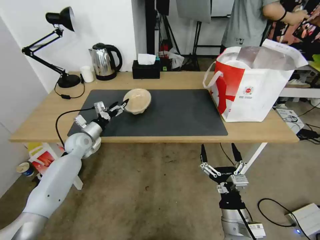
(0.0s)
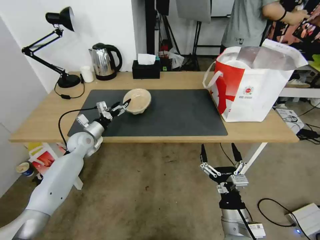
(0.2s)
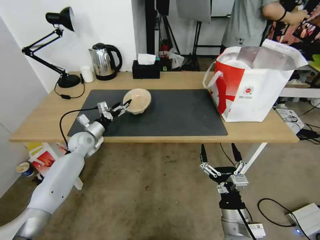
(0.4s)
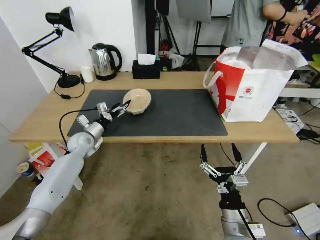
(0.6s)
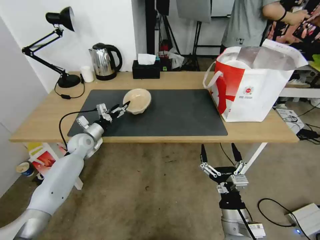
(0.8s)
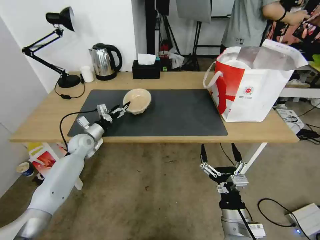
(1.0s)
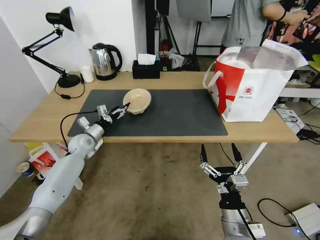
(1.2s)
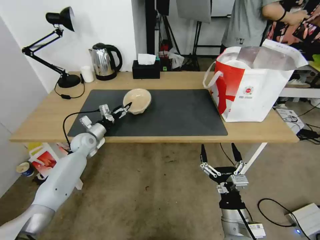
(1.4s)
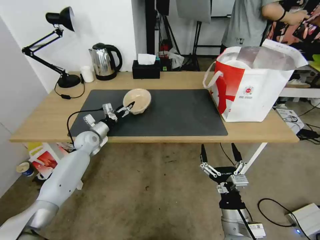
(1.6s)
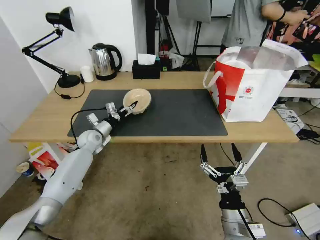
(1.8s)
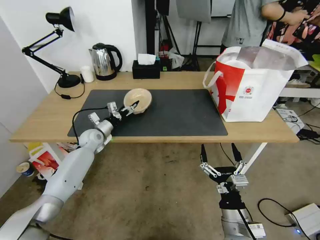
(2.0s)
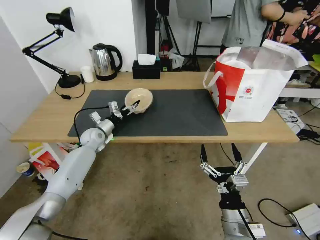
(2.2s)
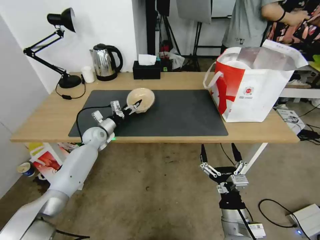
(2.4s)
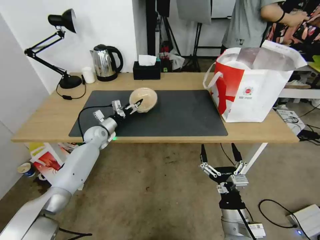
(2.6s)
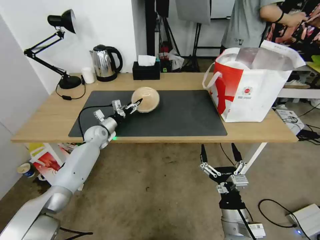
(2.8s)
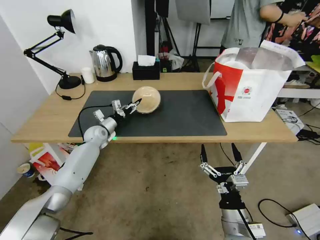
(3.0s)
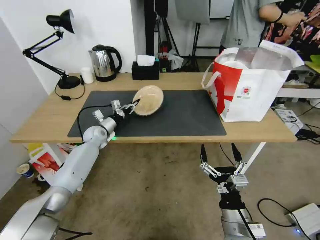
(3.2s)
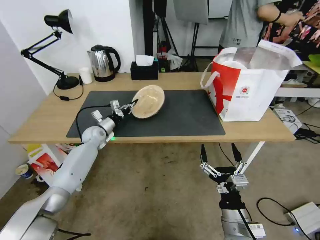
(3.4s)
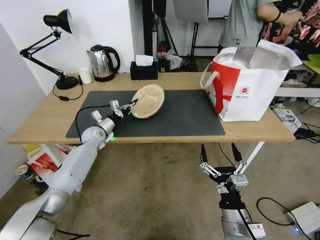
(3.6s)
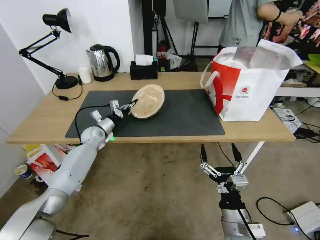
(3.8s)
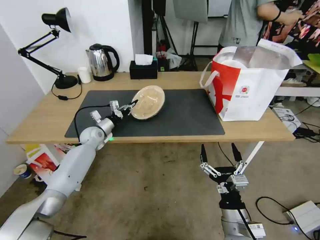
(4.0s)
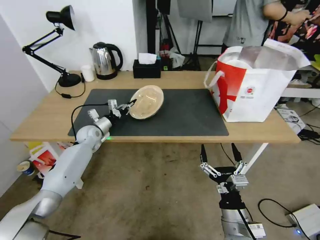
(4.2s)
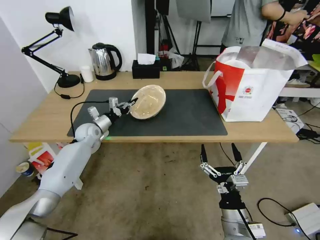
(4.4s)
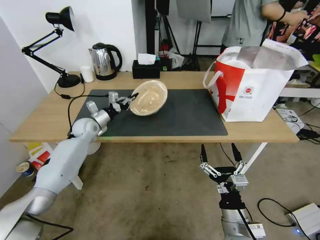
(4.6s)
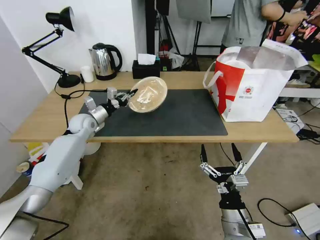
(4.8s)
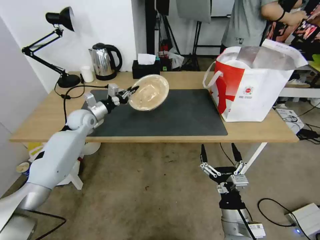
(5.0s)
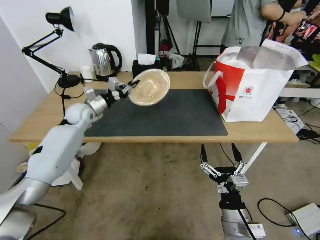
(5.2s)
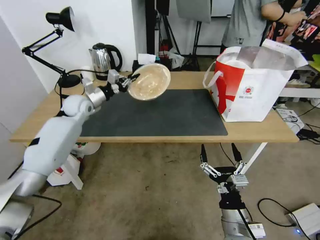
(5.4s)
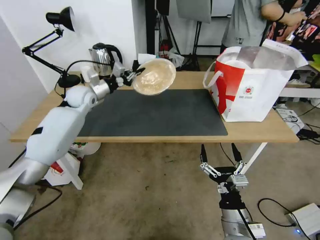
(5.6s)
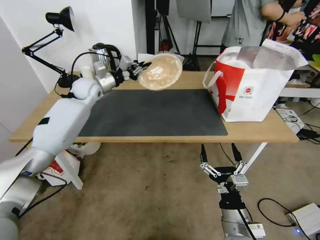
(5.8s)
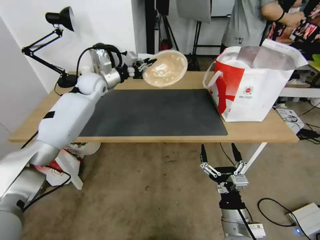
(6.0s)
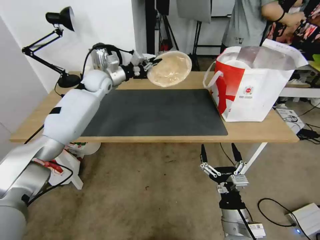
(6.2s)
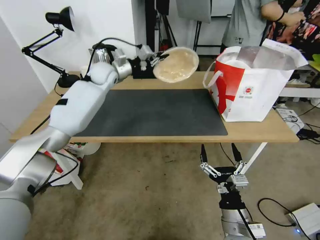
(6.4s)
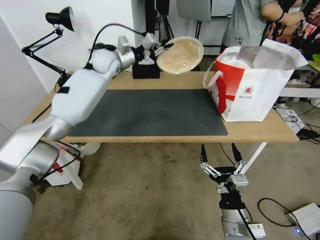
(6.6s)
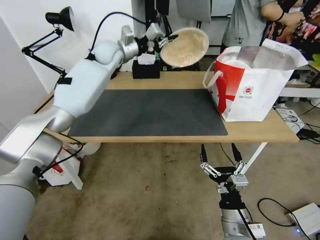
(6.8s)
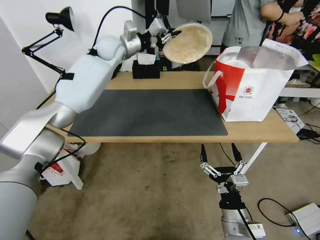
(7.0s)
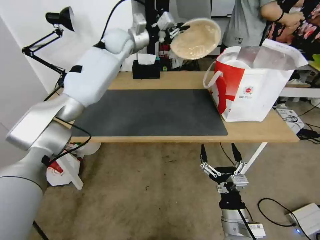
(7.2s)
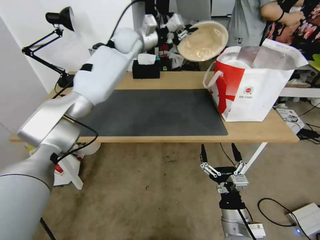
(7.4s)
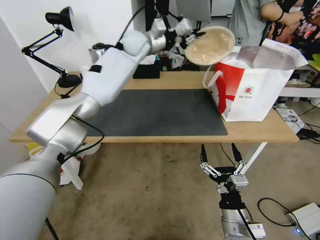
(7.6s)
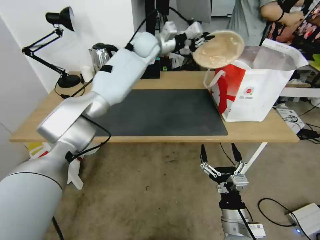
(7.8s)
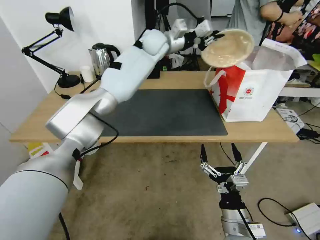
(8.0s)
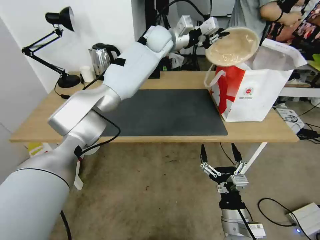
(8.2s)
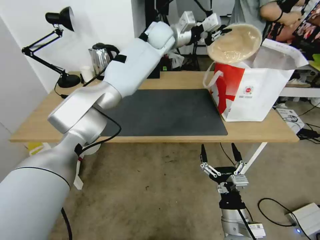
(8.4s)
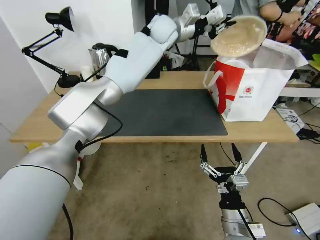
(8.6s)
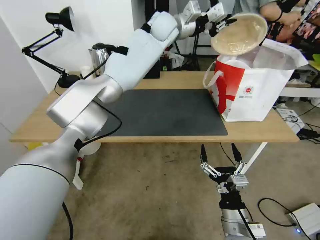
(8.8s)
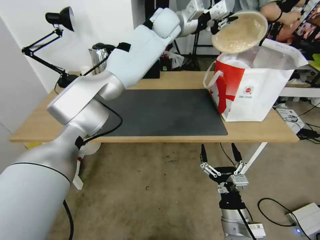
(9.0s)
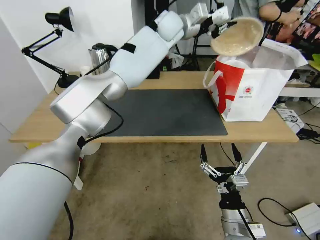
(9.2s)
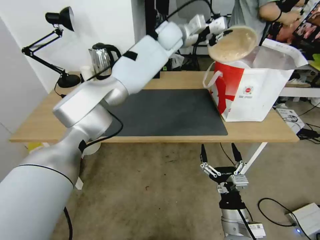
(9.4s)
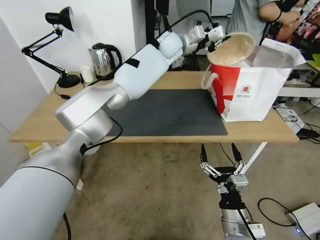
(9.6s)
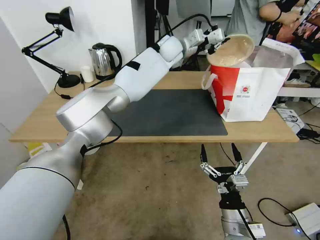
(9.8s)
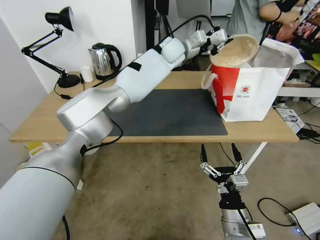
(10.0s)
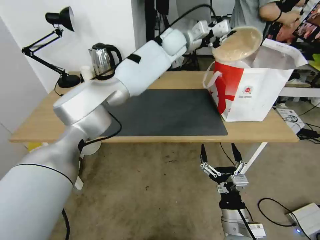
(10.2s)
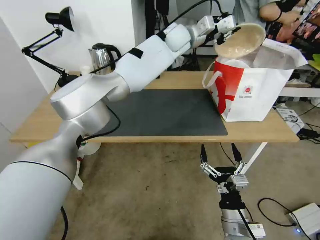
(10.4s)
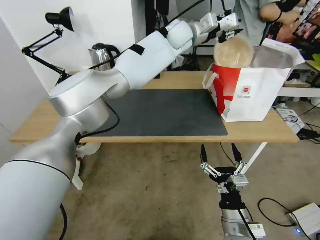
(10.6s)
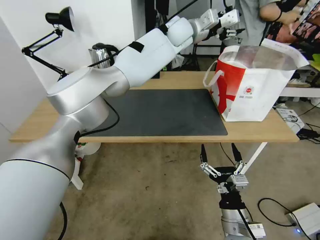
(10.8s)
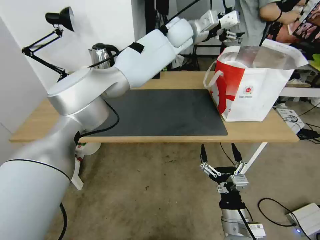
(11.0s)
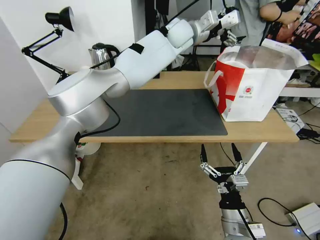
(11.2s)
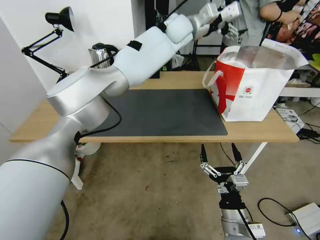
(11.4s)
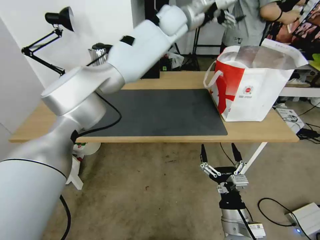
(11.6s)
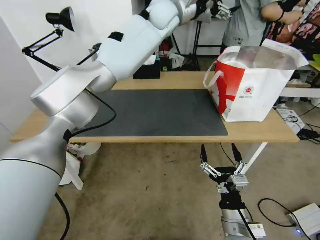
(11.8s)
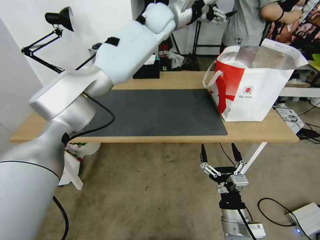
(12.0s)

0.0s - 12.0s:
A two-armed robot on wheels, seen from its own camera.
Task of the whole recording: Pick up the trash from the table and place it into the takeout bag.
0.0s - 1.6s: The grippers move only a little.
1.6s - 3.0s: The left gripper closes up.
3.0s - 4.4s: The left gripper closes its fingers.
4.4s - 6.0s: The left gripper heads upward, covering some 20 cm.
6.0s - 7.6s: The left gripper shifts about 20 cm to the right and upward.
7.6s - 9.0s: The left gripper heads to the right and upward, covering about 10 cm.
10.4s - 12.0s: The left gripper shifts some 5 cm to the left, and opens.

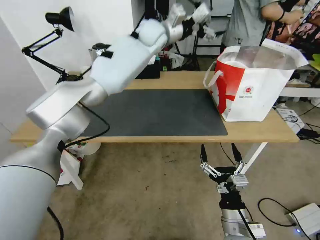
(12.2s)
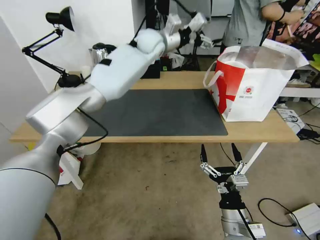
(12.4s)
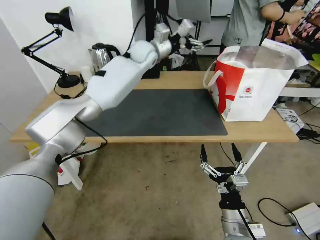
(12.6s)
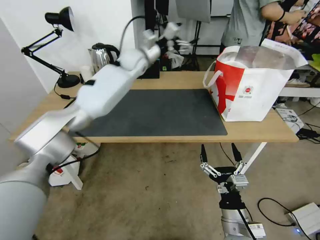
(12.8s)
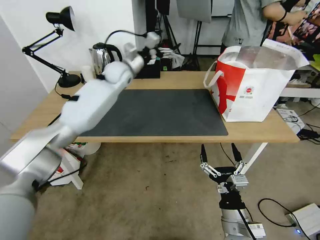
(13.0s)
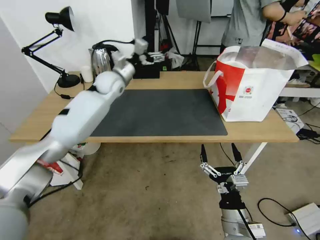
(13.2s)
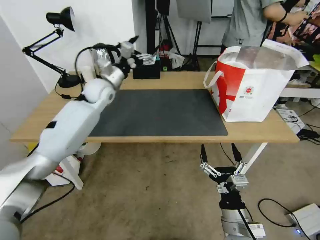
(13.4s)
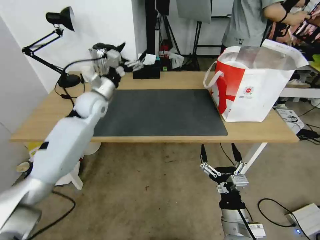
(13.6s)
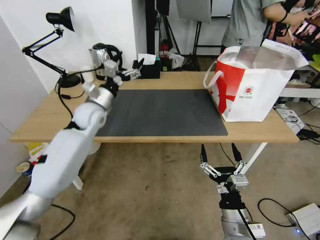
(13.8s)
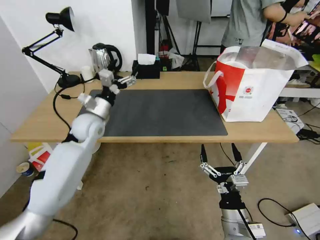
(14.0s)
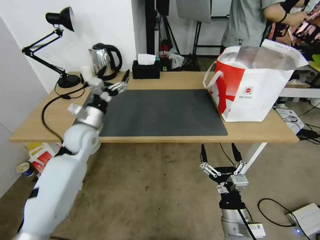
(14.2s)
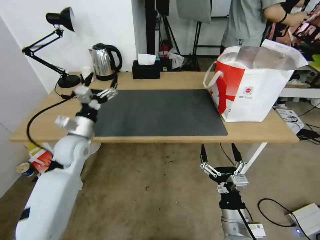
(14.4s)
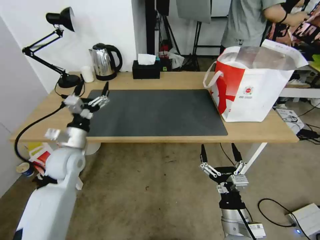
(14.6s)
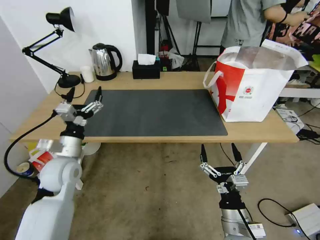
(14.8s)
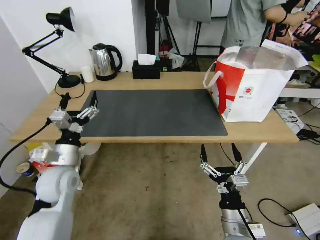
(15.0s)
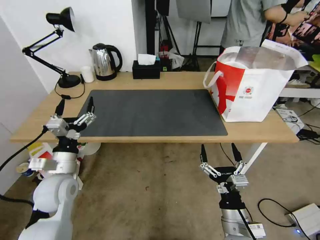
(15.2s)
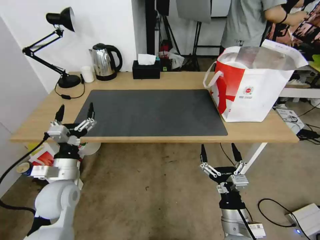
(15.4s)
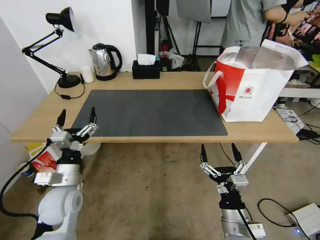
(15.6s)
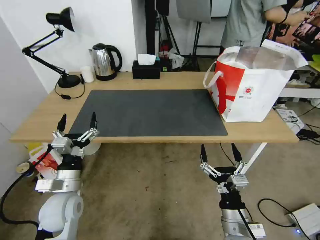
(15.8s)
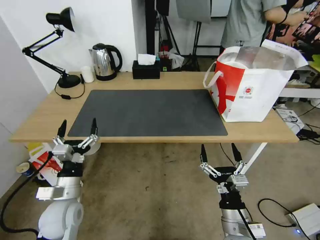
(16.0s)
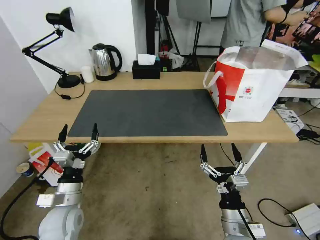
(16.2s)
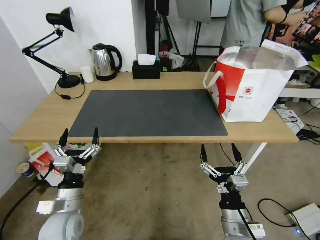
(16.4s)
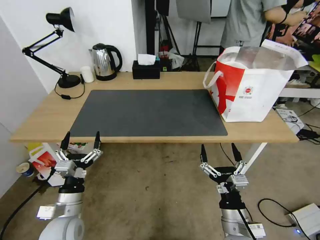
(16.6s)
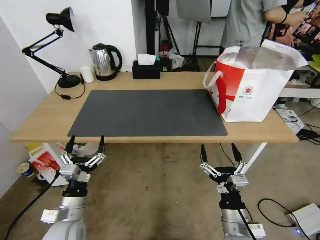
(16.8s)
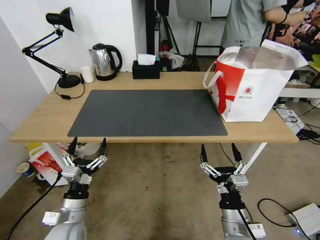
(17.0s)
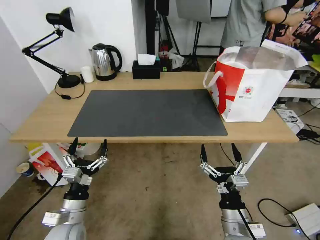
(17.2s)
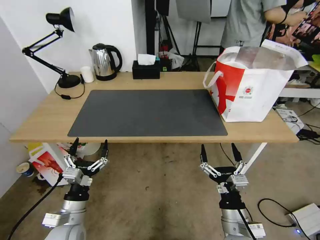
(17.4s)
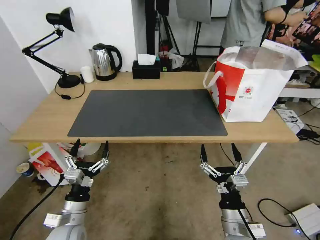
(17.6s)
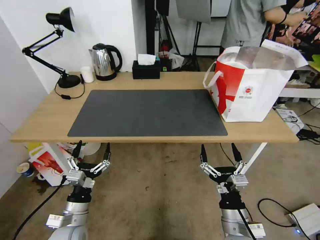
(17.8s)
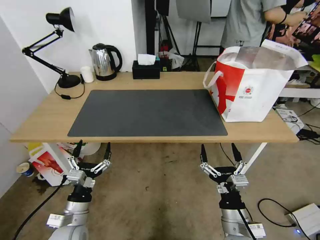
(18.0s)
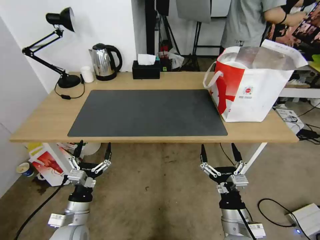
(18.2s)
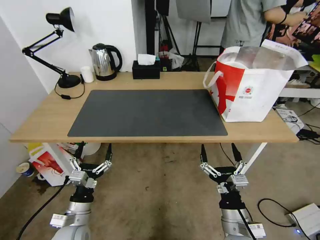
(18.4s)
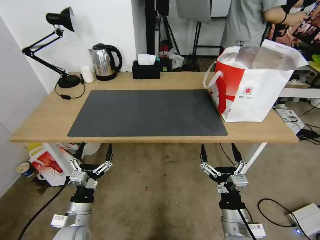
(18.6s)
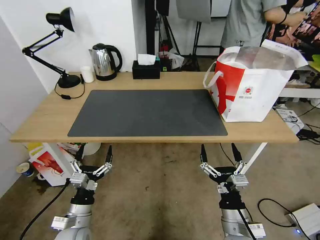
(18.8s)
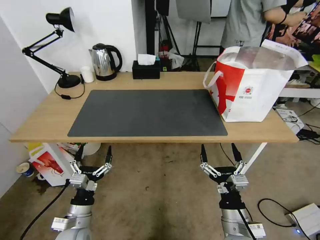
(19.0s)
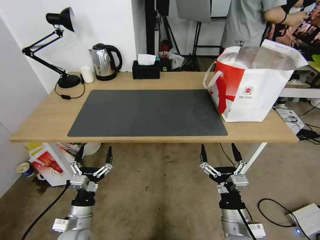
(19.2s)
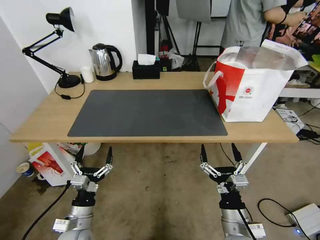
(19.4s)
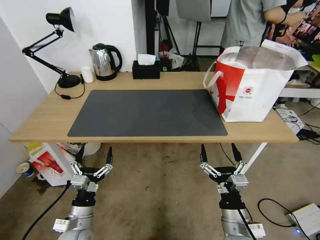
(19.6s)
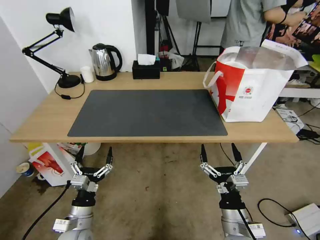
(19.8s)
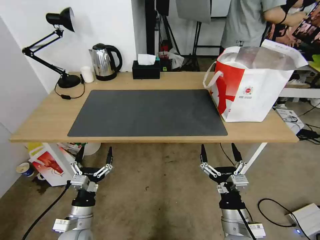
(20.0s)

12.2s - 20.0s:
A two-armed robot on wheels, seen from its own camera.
Task of the whole recording: Pick up the trash from the table and place it into the takeout bag.
12.2s - 13.8s: The left gripper travels downward, to the left and backward by some 35 cm.
13.8s - 15.4s: The left gripper heads backward and downward, covering about 25 cm.
15.4s - 16.8s: The left gripper moves backward and downward, some 10 cm.
16.8s - 20.0s: The grippers move only a little.

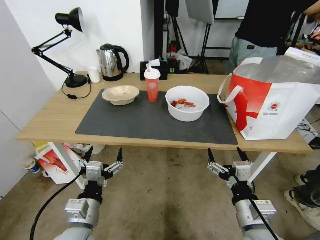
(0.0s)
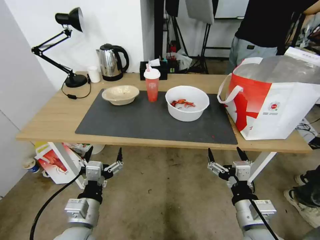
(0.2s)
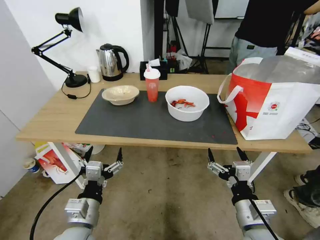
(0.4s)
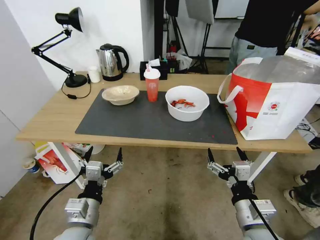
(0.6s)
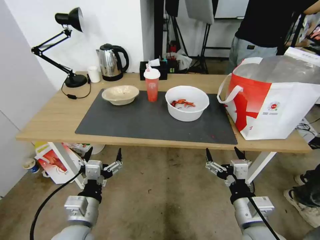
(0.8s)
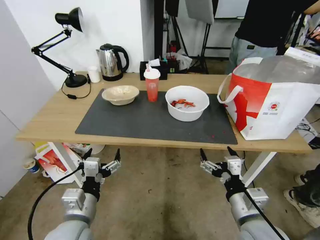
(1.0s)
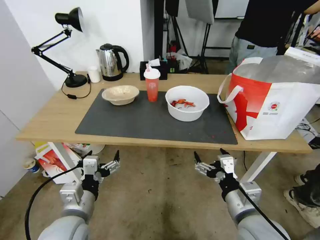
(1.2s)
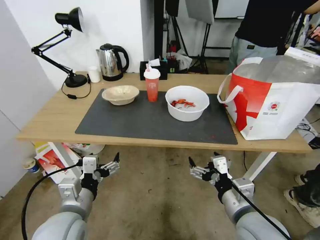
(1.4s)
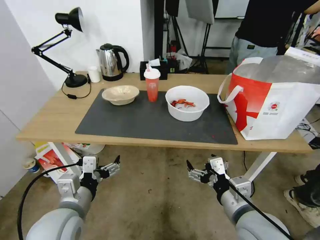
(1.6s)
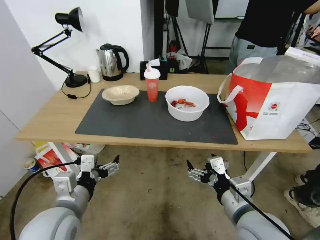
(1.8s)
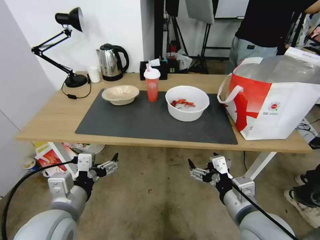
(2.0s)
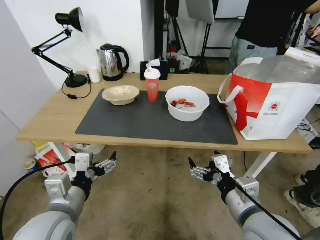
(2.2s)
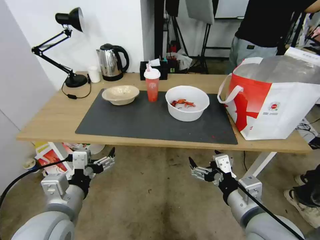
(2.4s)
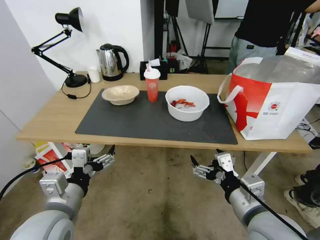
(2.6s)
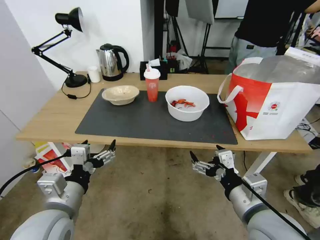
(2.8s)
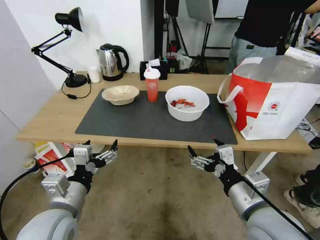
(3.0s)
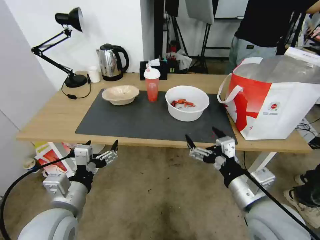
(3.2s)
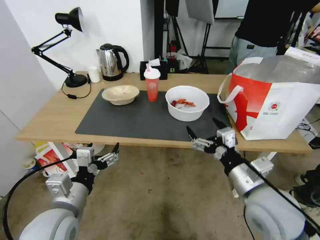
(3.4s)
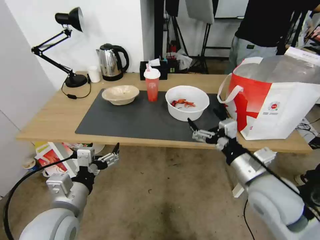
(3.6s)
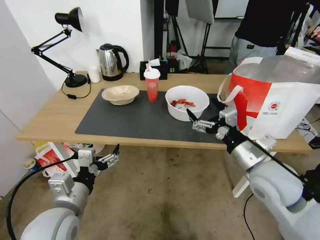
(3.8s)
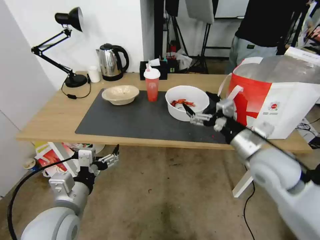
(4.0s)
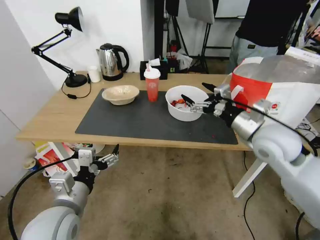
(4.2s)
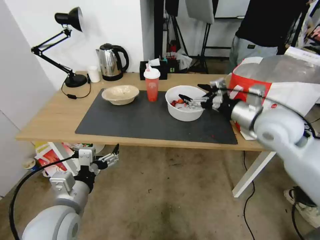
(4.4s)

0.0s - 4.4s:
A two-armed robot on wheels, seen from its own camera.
Task of the whole recording: Pick up the trash from the table and place it into the takeout bag.
1.4s - 3.0s: There are only small adjustments of the grippers.
3.0s - 4.4s: The right gripper travels forward by approximately 15 cm.
